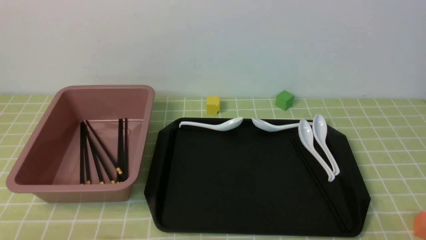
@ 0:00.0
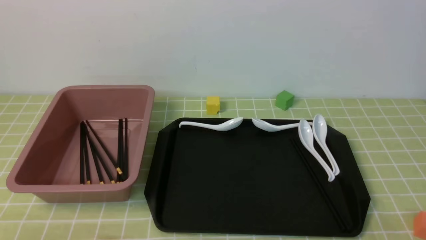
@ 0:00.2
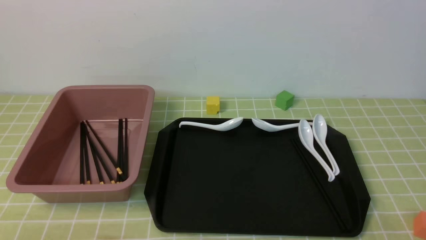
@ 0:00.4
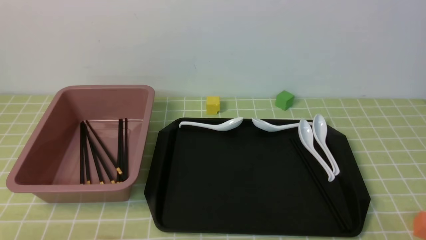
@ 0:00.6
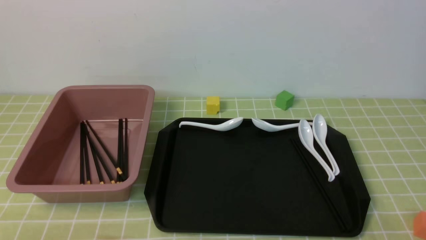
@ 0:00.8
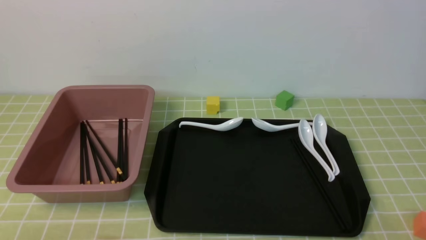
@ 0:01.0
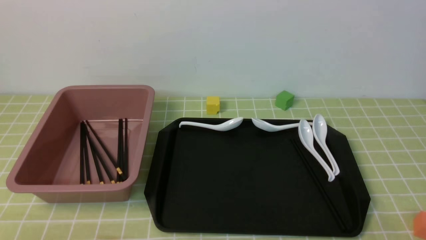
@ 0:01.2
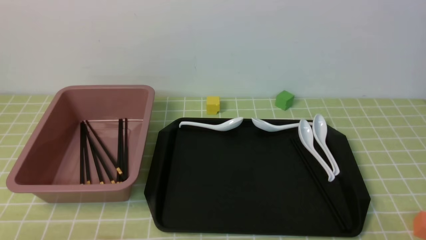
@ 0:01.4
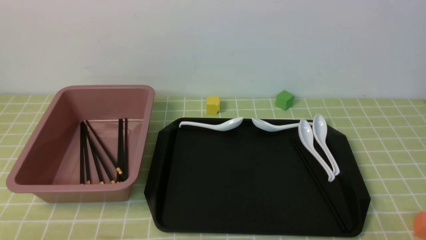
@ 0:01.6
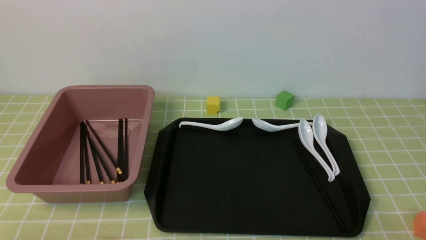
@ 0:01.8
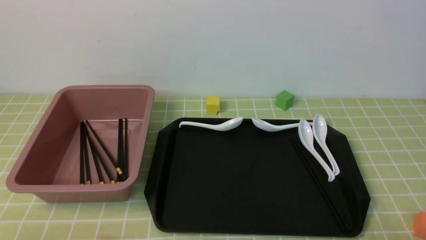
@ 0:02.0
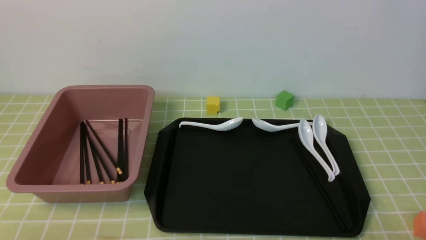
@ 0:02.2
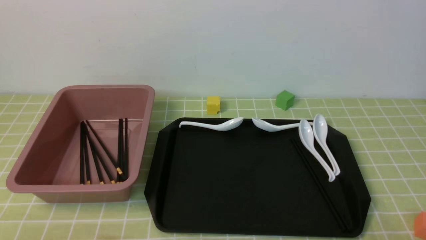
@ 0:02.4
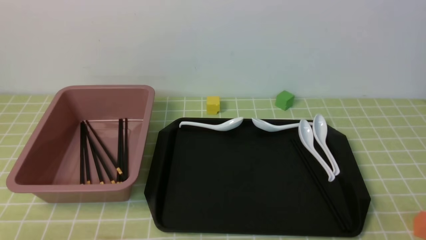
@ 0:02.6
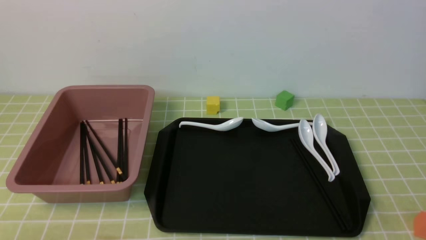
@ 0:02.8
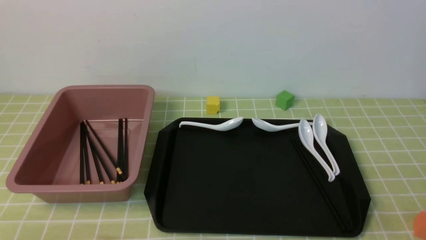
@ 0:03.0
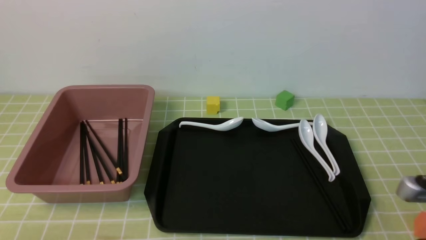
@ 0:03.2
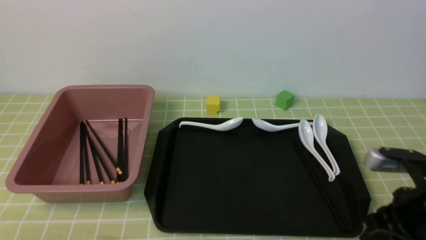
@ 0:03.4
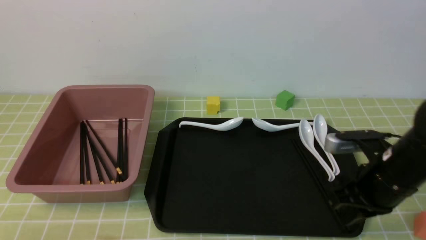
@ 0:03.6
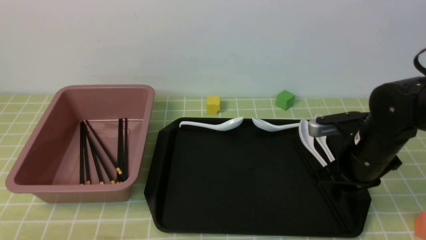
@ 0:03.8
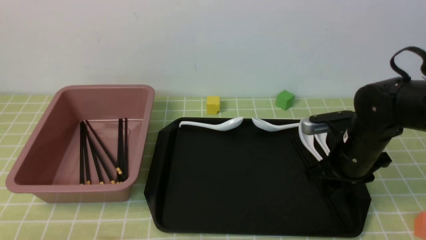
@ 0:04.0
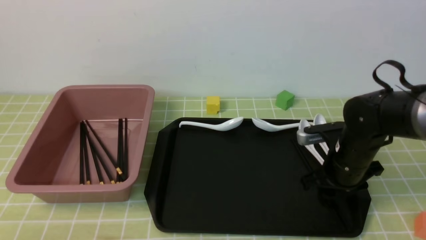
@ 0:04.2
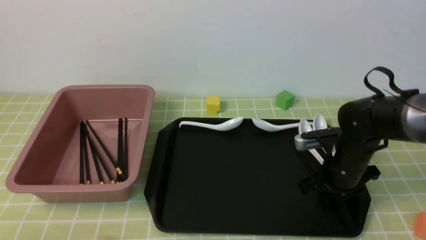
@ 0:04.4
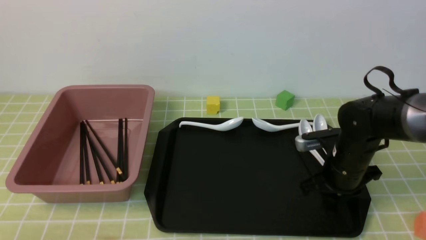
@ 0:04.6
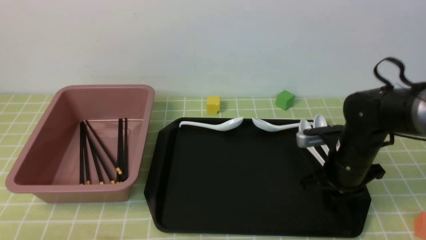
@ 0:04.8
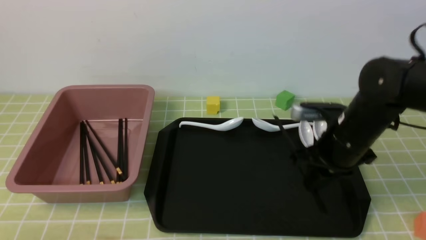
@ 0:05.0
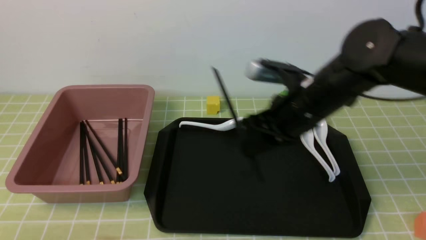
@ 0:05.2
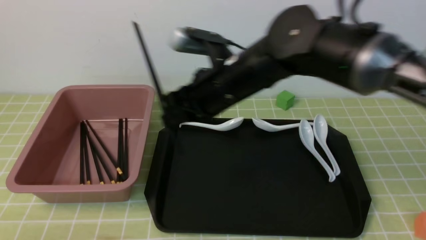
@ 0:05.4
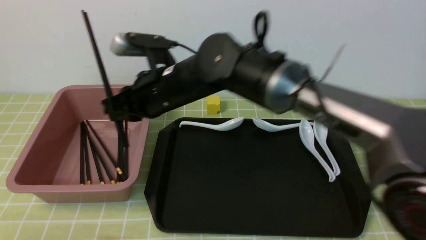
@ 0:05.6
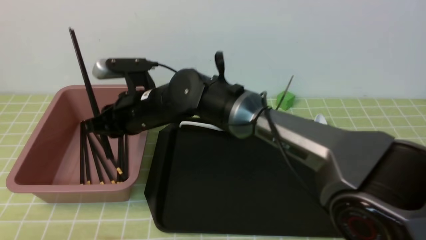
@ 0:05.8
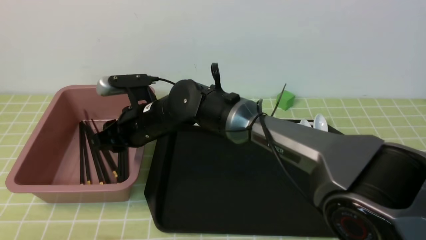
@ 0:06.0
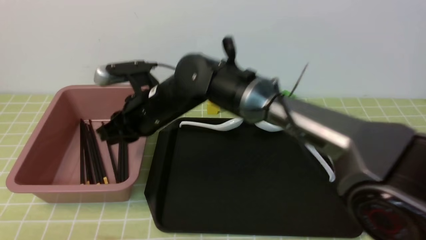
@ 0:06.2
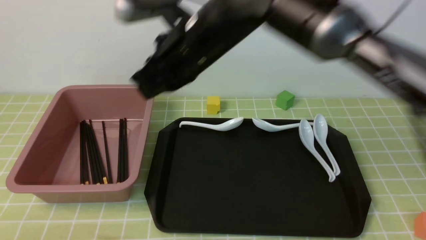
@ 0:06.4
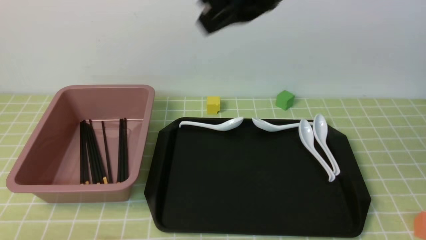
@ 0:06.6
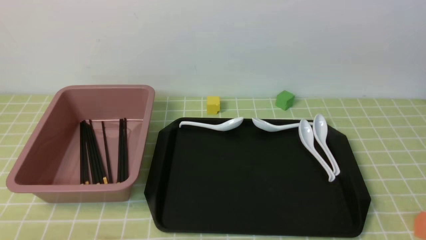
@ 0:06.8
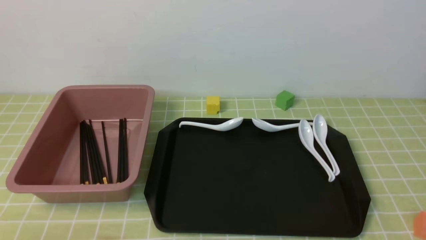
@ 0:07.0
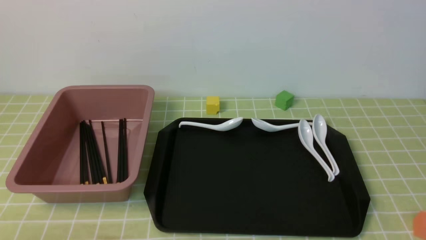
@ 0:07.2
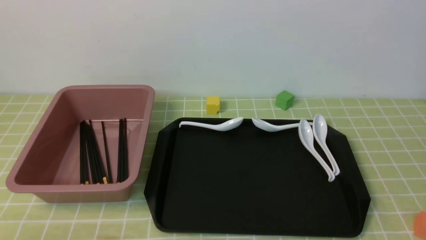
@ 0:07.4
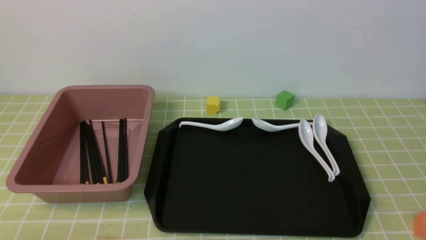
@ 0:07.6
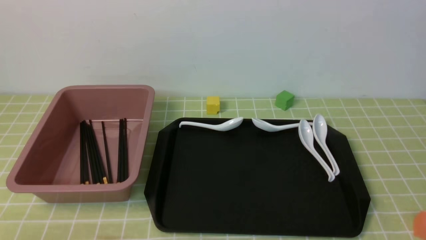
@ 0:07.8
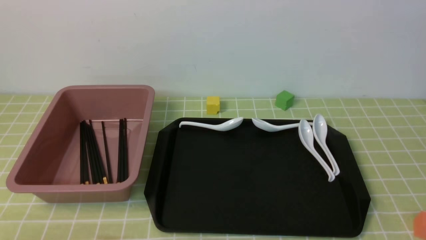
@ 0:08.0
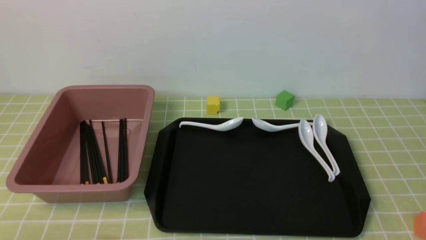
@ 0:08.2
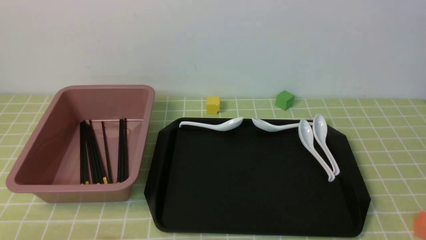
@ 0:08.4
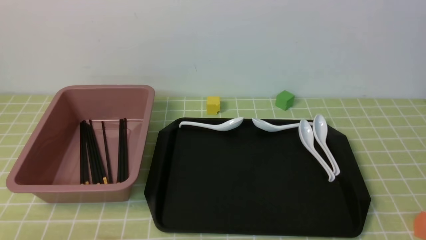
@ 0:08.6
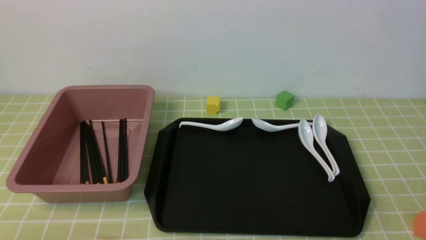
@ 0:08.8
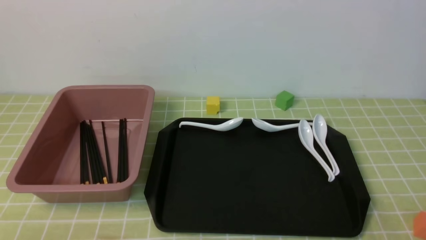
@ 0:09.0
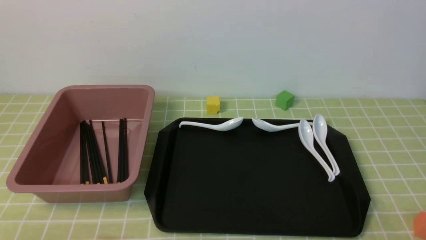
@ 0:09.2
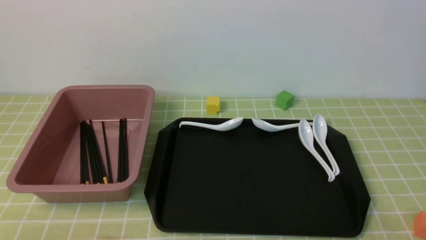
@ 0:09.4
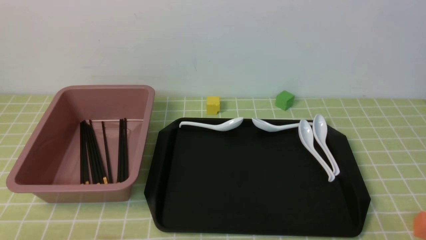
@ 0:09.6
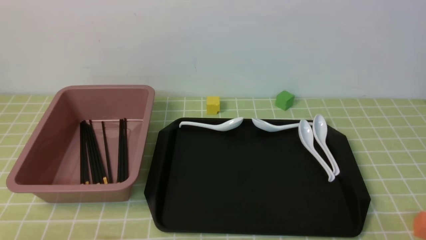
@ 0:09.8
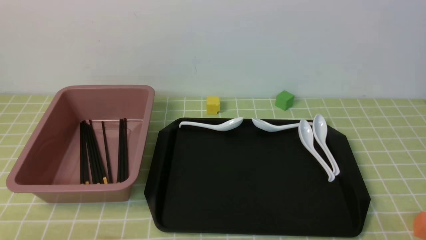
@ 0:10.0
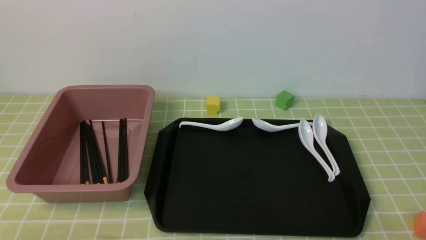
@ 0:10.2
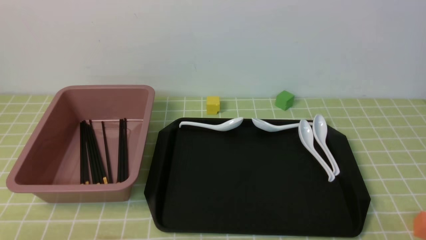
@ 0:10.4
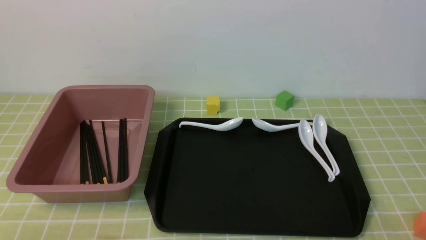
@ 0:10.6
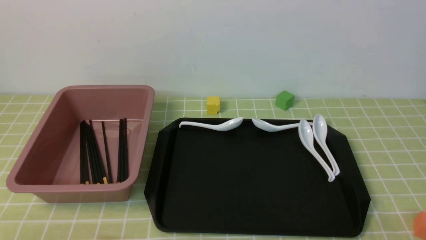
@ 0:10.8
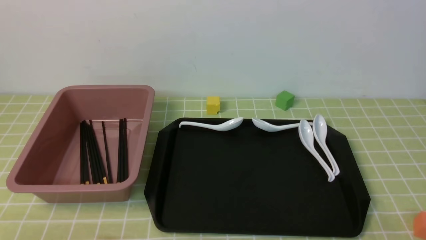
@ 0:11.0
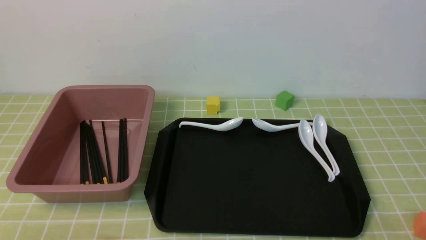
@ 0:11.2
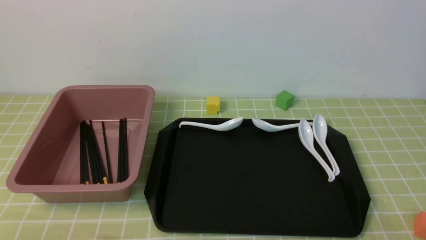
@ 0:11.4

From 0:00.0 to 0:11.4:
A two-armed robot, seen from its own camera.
Step, from 0:00.0 to 0:05.0: use the right arm to grab a pair of chopsticks.
Step, from 0:05.2 to 0:06.2: use the right arm to put the chopsticks into the lunch box.
From 0:00.0 to 0:01.4: Both grippers stay put.
From 0:02.8 to 0:04.2: The right gripper moves forward, about 25 cm, and opens.
From 0:04.2 to 0:05.6: The right gripper shifts roughly 30 cm to the left and upward, and closes.
From 0:05.6 to 0:07.2: The right gripper shifts approximately 50 cm to the right, backward and upward, and closes its fingers.
From 0:10.0 to 0:11.4: Neither gripper changes place.

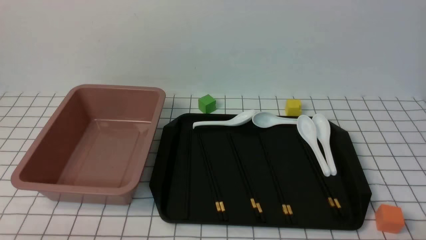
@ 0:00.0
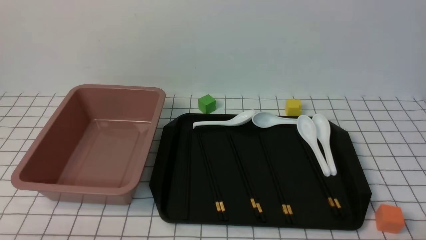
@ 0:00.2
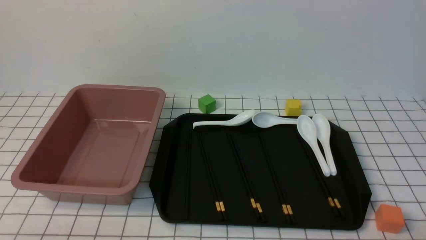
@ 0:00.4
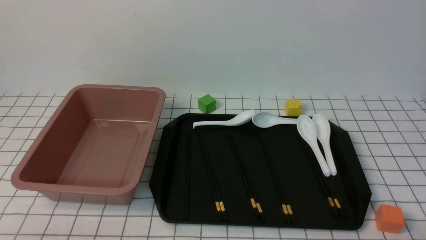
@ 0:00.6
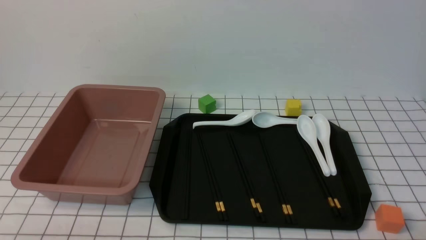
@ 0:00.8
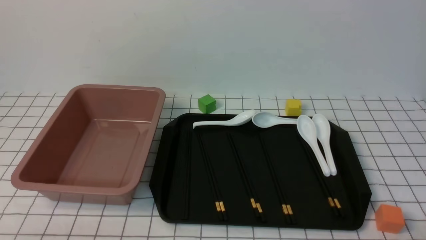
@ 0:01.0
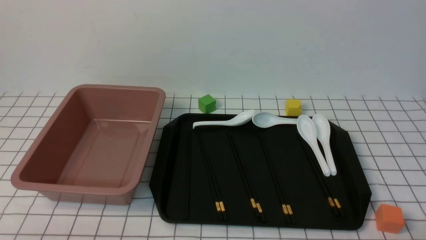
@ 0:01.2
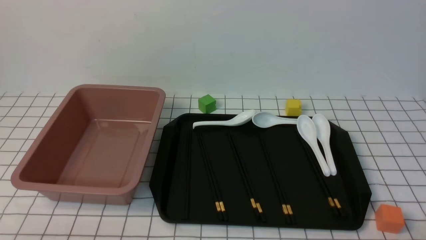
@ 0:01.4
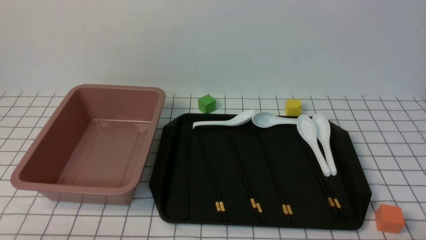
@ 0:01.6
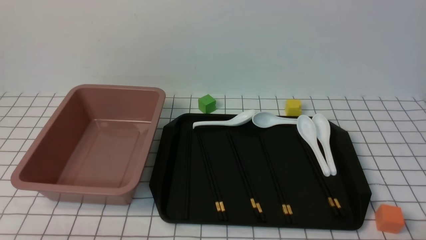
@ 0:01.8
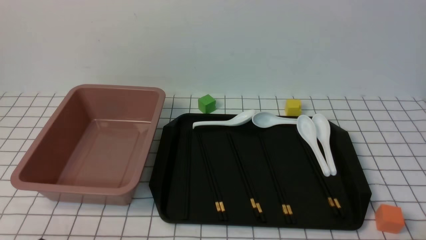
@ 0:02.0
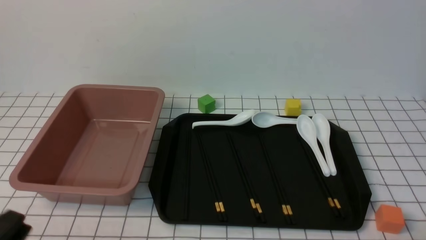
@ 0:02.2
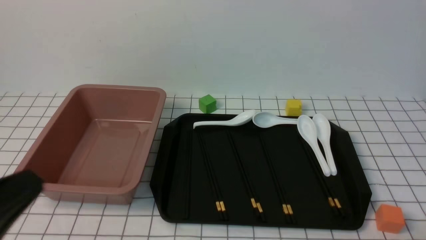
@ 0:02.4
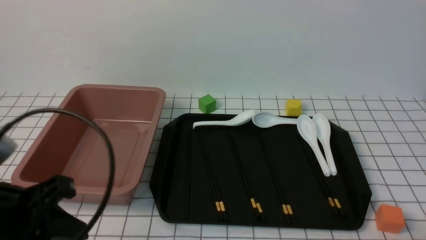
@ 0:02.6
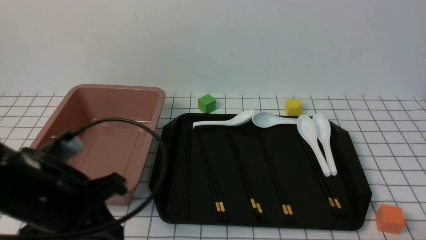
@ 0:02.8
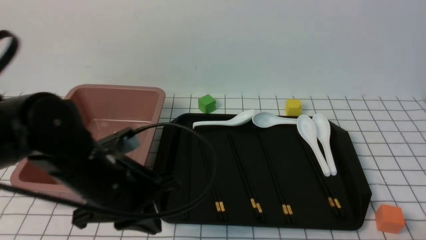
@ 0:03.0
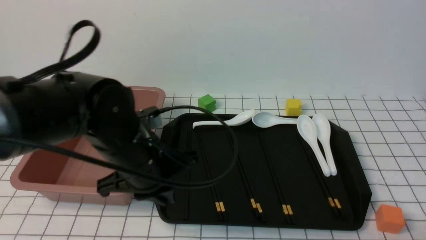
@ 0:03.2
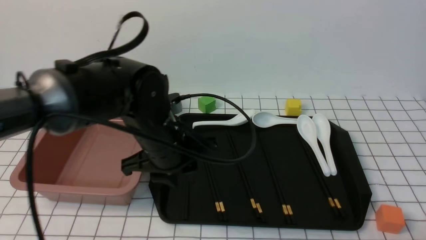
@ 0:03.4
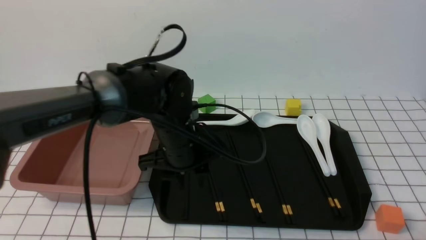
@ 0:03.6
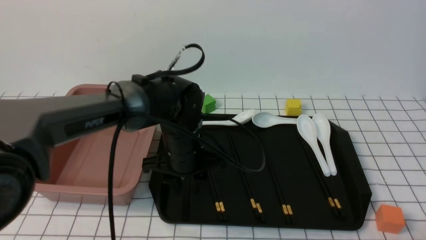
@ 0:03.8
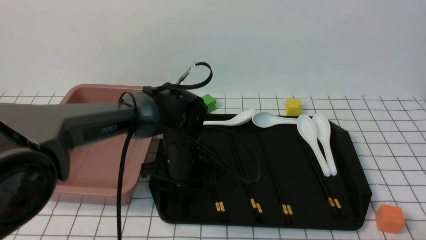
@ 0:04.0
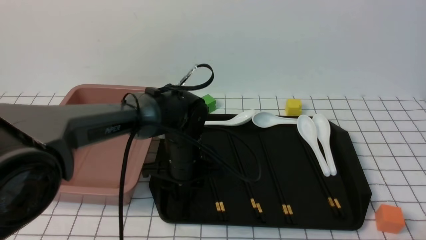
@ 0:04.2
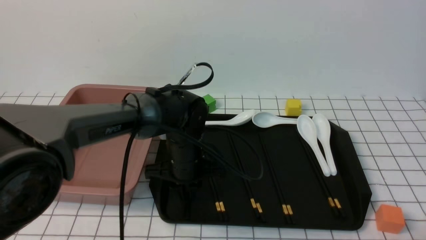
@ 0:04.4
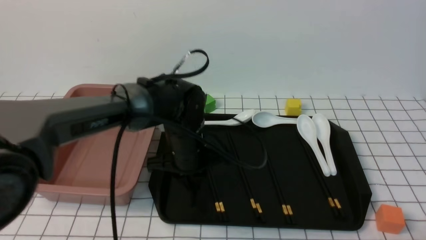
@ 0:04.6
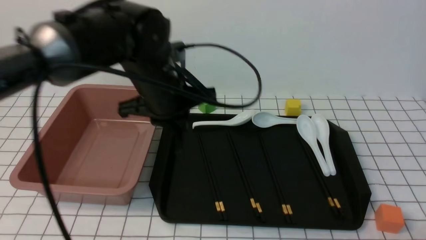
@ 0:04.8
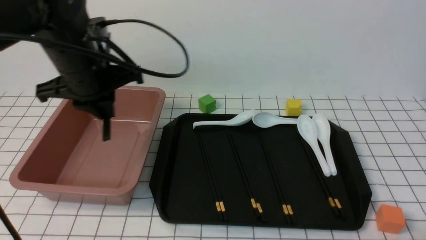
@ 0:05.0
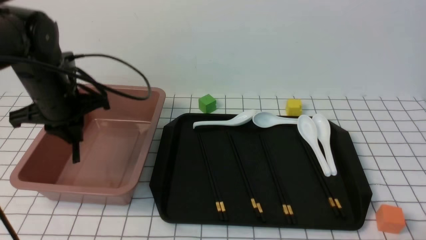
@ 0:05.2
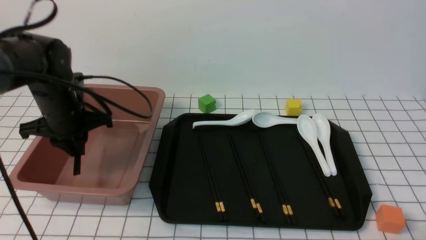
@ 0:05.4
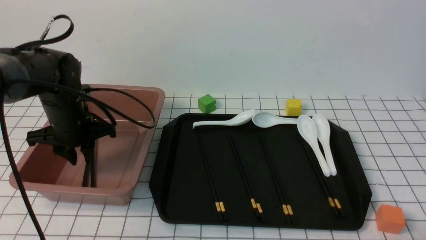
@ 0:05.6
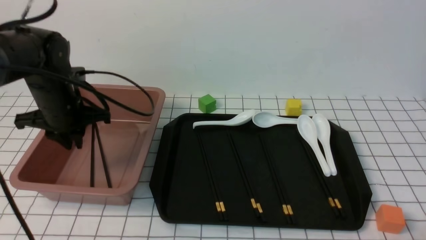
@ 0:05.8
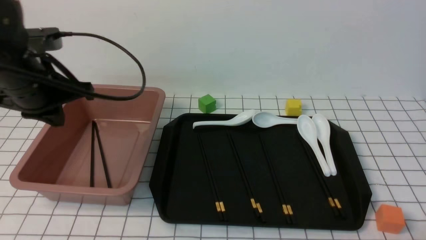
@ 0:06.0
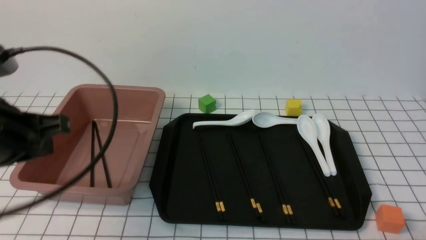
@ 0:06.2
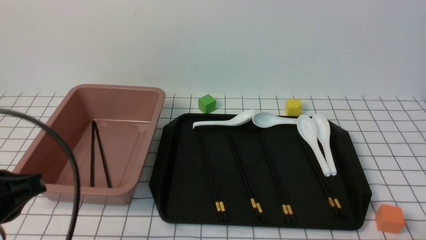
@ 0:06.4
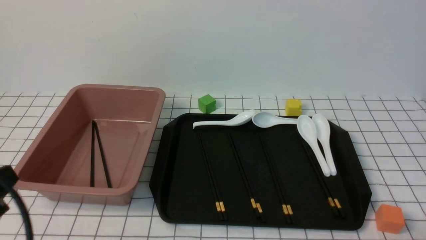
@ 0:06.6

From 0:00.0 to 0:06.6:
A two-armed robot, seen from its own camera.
Step, from 0:00.0 to 0:04.4: use the left arm to grab a pair of chopsticks.
Step, from 0:04.6 to 0:05.8: use the left arm to put the chopsticks into the lunch box.
From 0:01.6 to 0:03.2: The left gripper moves forward and to the right, roughly 25 cm, and closes.
From 0:03.2 to 0:05.0: The left gripper moves forward and upward, approximately 10 cm, and opens, then closes again.
From 0:05.0 to 0:06.6: The left gripper goes some 25 cm backward and to the left.
